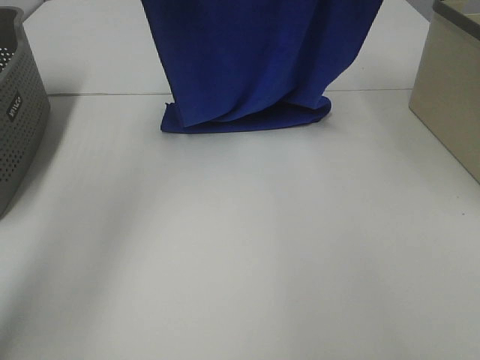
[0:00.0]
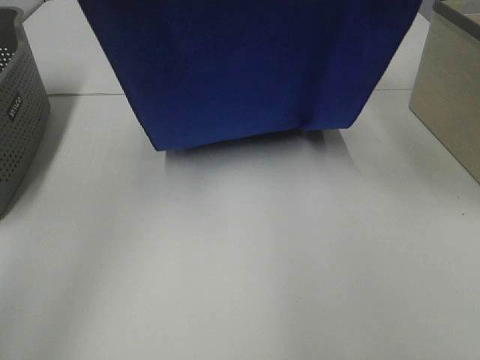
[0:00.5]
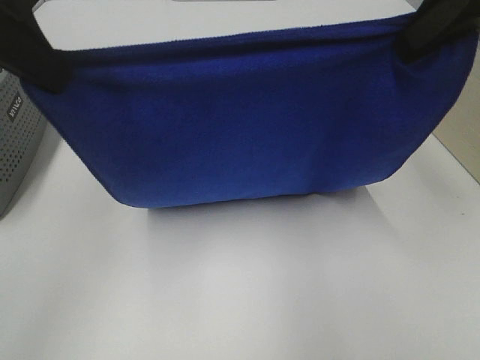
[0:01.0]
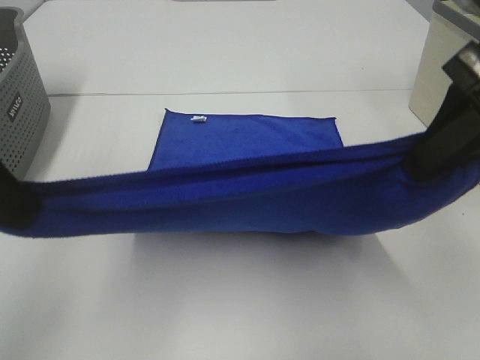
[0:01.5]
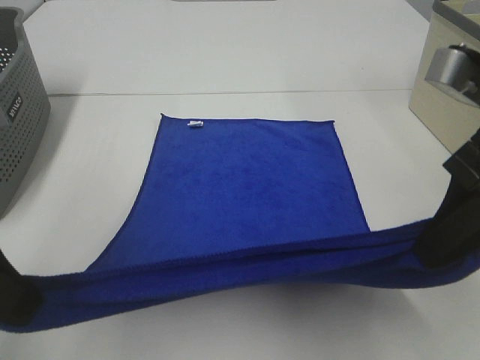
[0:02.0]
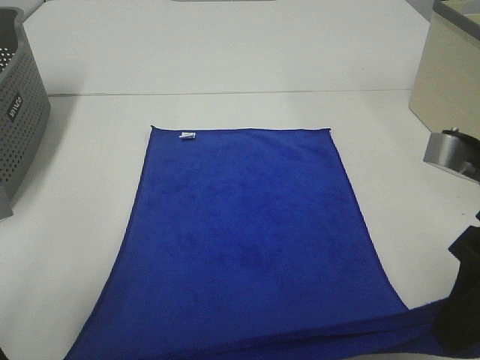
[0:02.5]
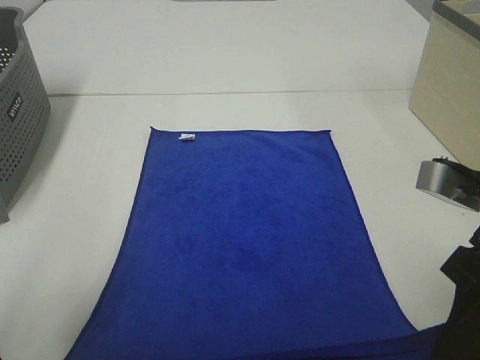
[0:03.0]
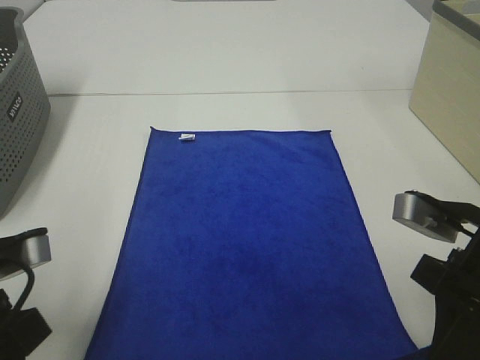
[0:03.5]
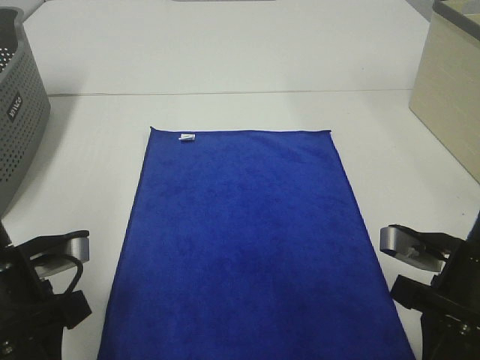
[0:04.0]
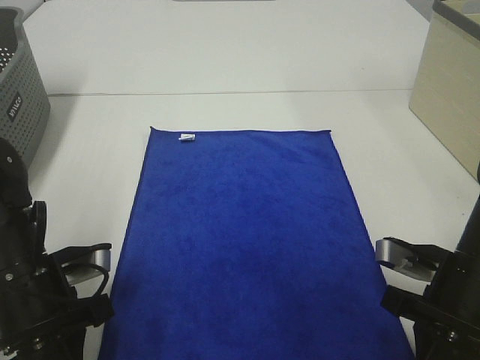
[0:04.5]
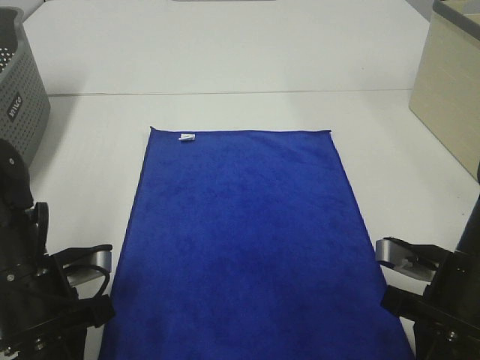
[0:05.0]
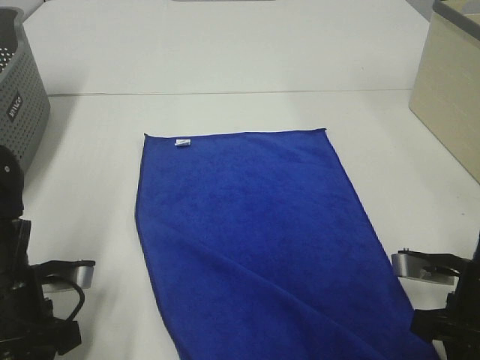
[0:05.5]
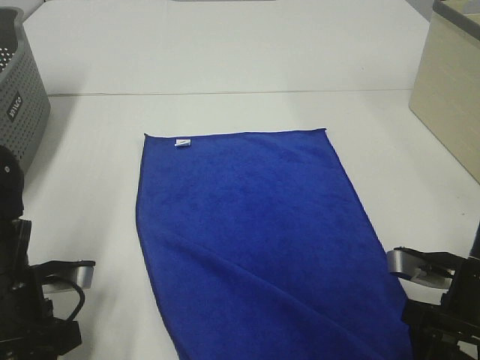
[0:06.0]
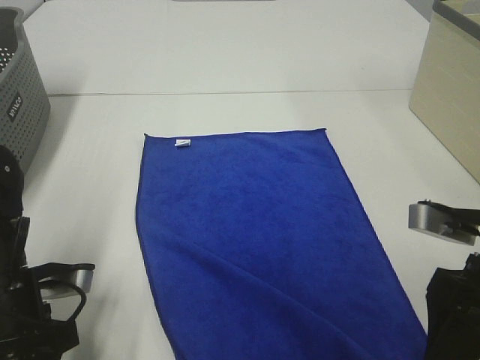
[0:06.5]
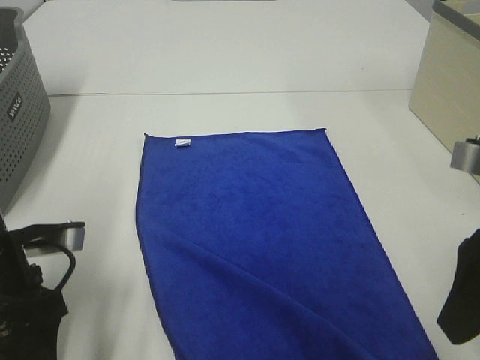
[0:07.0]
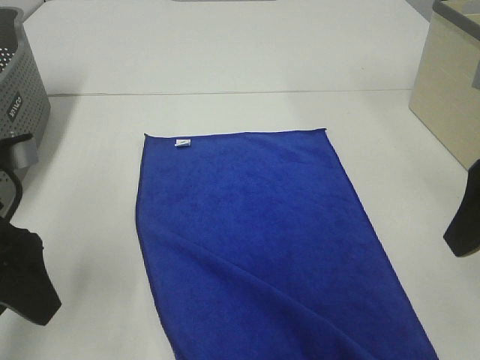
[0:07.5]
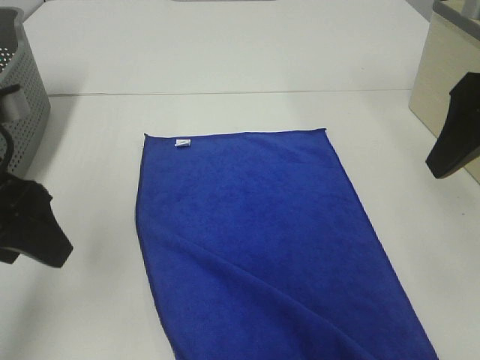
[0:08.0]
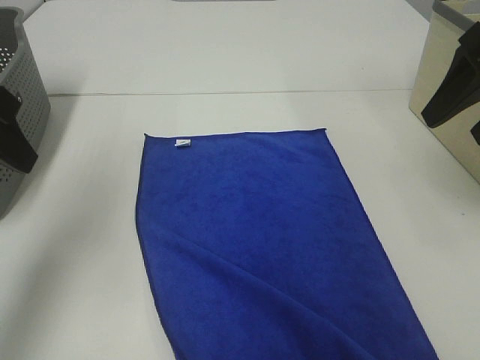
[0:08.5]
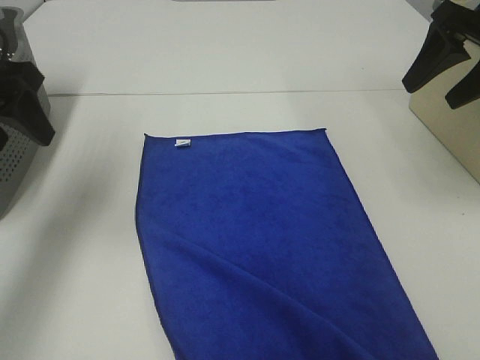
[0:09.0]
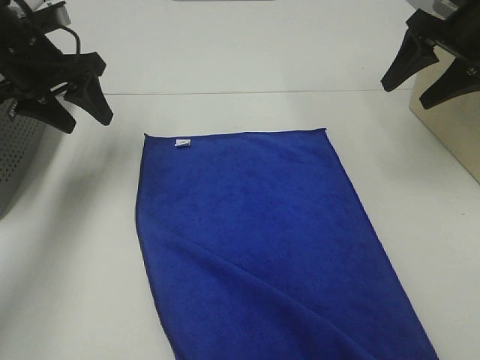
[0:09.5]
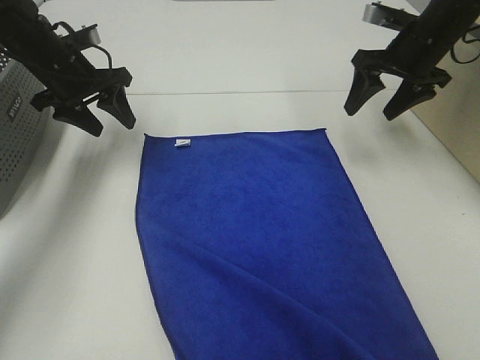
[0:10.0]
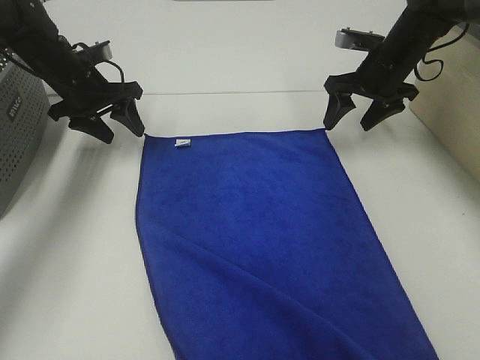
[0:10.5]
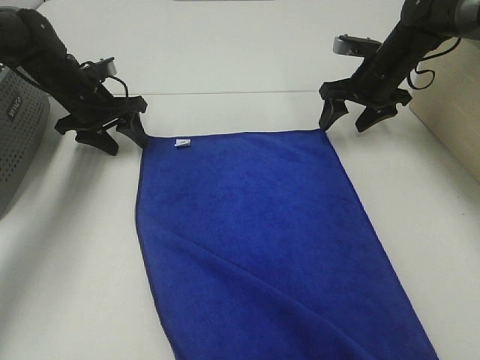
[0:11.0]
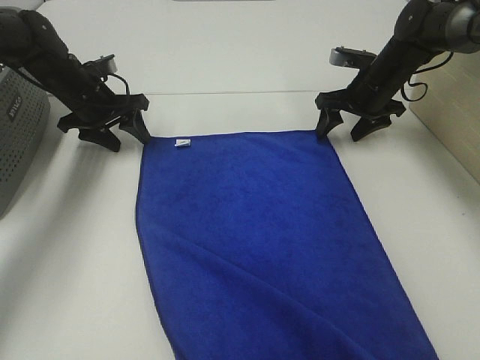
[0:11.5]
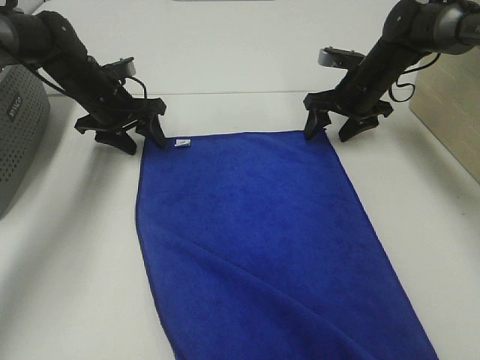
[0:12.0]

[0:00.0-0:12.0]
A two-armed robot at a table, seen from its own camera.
Task of the whole recording: Remove the towel and place it.
Step, 0:02.0 to 0:10.5: Left hand:adjust the blue towel.
Step, 0:02.0 to 0:10.5: Right hand:adjust the blue towel.
0:00.0 to 0:02.0: Both grippers travel together backward and downward, approximately 30 cm.
0:02.0 to 0:04.0: The two grippers go roughly 15 cm downward.
0:04.0 to 0:06.0: The right gripper opens up.
0:06.0 to 0:08.0: The grippers both shift upward by roughly 20 cm. The left gripper opens.
0:08.0 to 0:10.0: The right gripper heads forward and downward, covering roughly 25 cm. Meanwhile the left gripper is displaced forward by about 25 cm.
0:10.0 to 0:12.0: Both grippers move downward, about 10 cm.

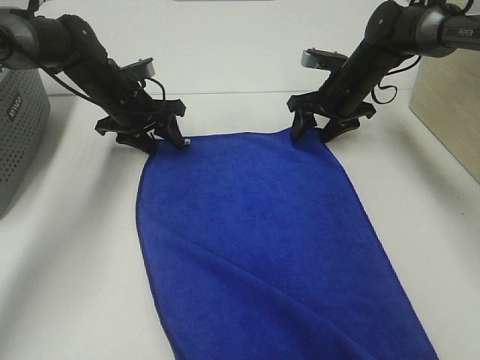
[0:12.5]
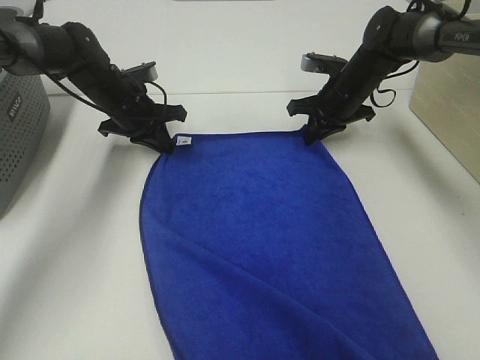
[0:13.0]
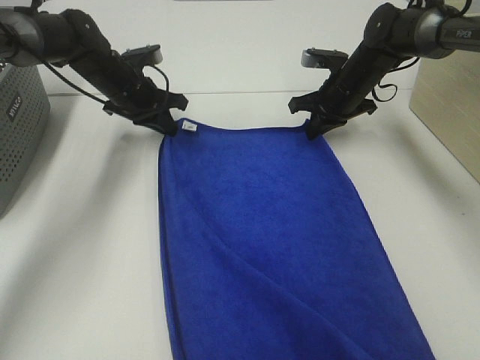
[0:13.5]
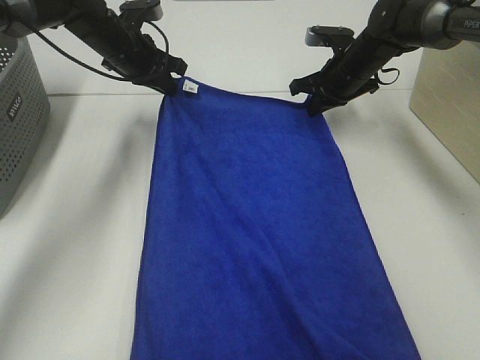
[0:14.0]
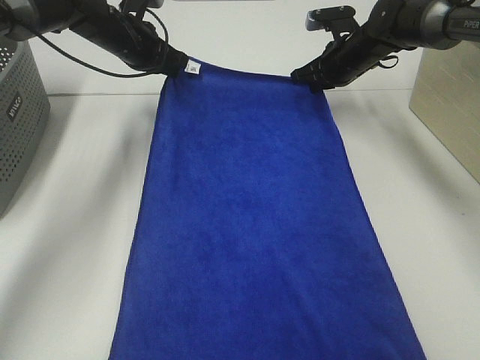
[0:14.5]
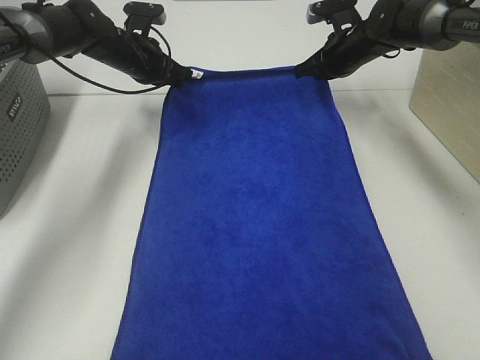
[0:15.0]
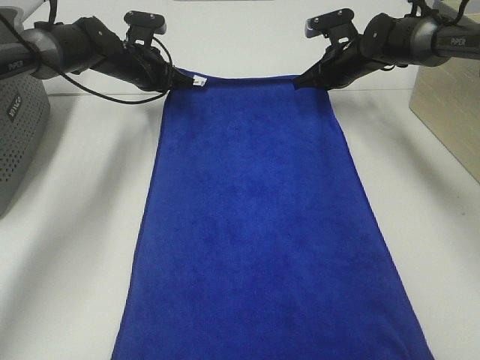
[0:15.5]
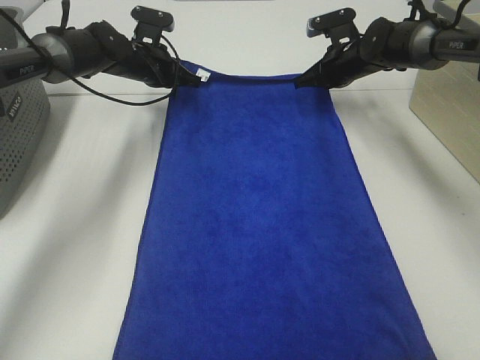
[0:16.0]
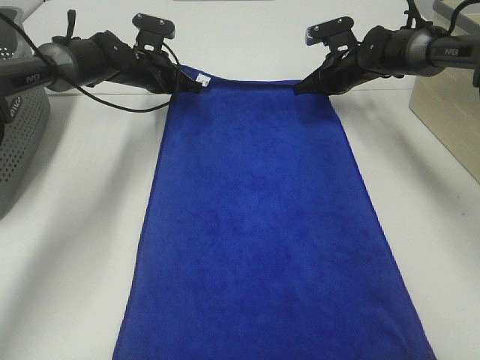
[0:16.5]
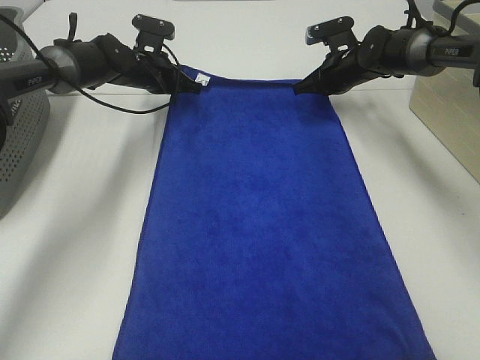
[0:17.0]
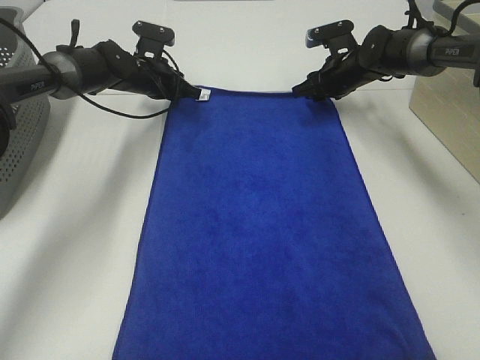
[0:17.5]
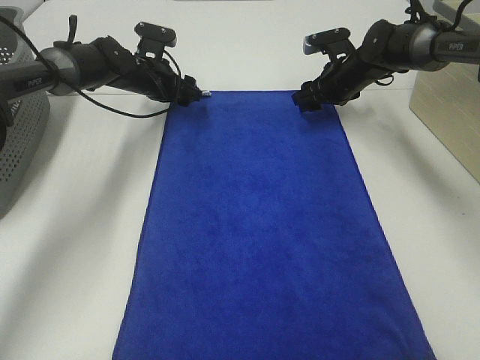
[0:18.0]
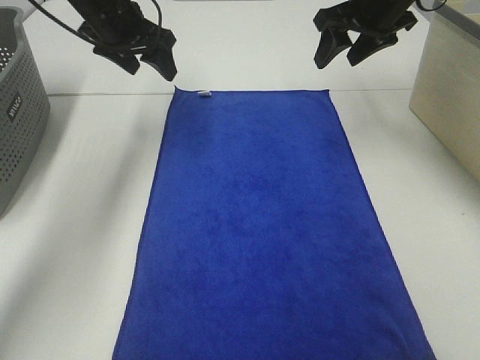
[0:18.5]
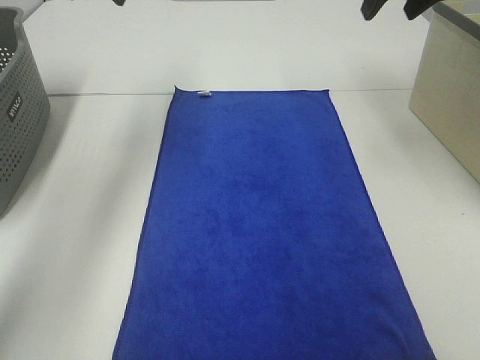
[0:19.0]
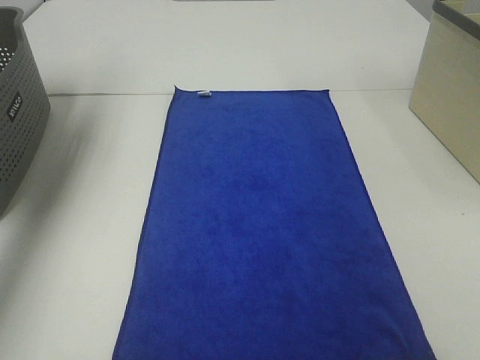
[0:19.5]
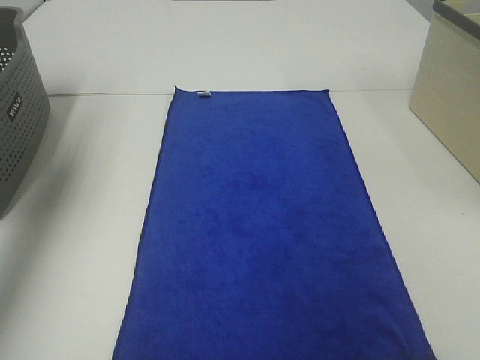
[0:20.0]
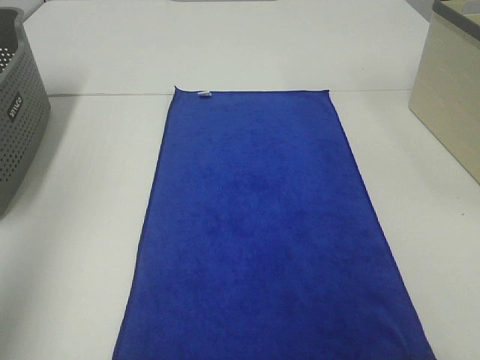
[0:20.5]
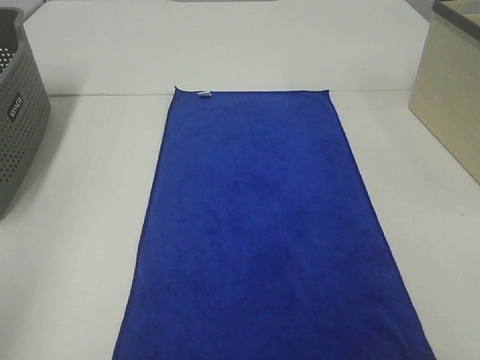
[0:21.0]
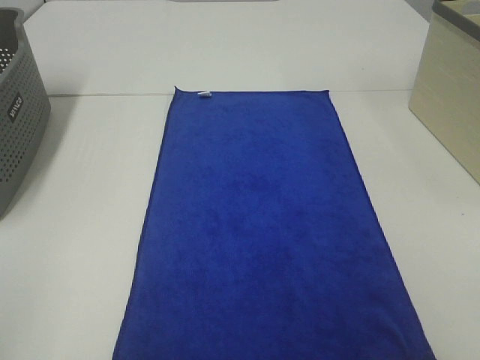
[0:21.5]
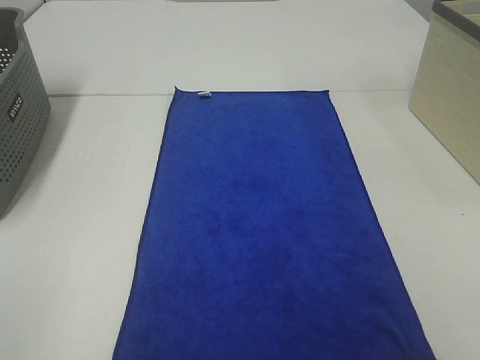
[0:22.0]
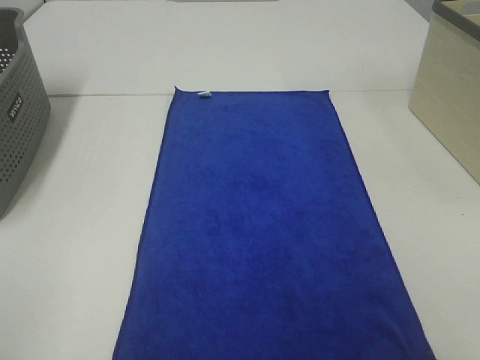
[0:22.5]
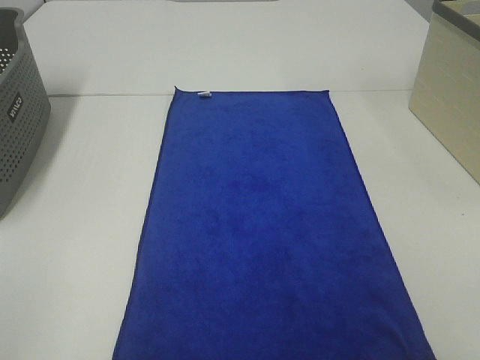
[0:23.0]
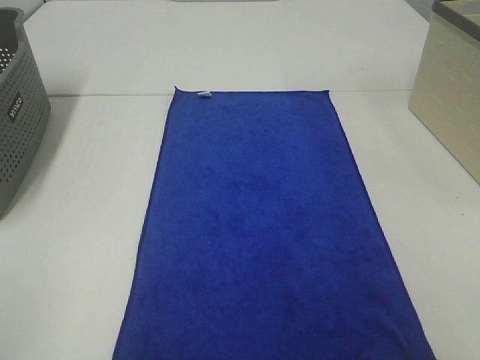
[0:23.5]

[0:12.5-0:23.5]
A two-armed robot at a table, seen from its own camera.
Task of the whole recording: Remove the towel and place it.
0:12.5 to 0:14.5: The left gripper is displaced upward and forward by approximately 10 cm, and closes its fingers; the right gripper changes place by roughly 5 cm, and closes up.
0:14.5 to 0:16.0: The left gripper shifts about 5 cm downward.
0:16.0 to 0:18.0: The right gripper opens up; the left gripper opens up.
0:18.0 to 0:20.0: The left gripper heads upward, backward and to the left, covering about 40 cm; the right gripper shifts approximately 40 cm backward and upward.
0:20.0 to 0:21.5: The left gripper shifts some 35 cm backward.

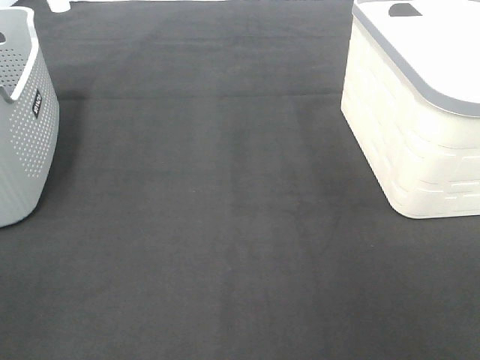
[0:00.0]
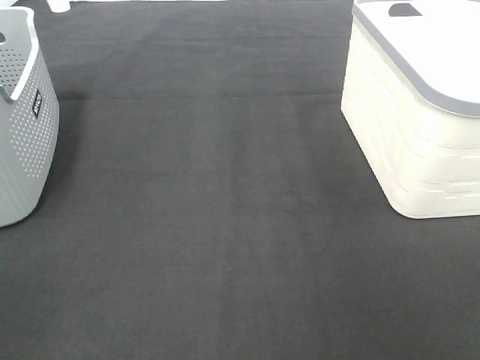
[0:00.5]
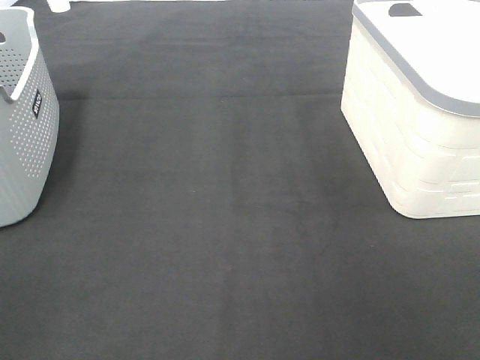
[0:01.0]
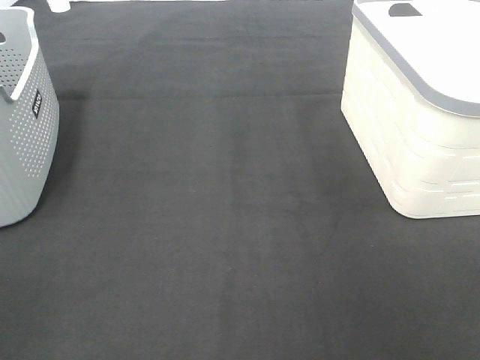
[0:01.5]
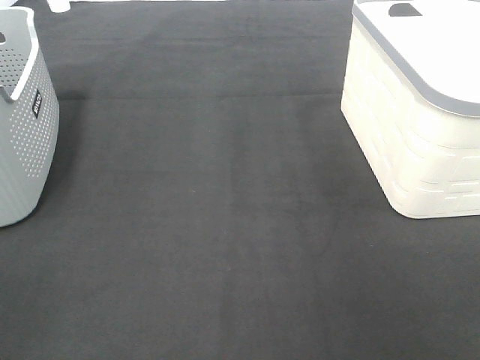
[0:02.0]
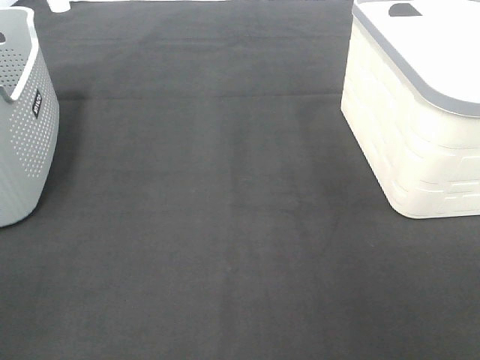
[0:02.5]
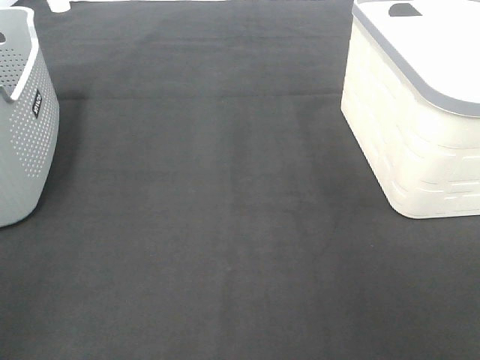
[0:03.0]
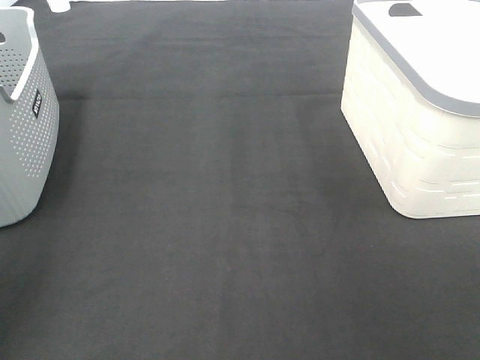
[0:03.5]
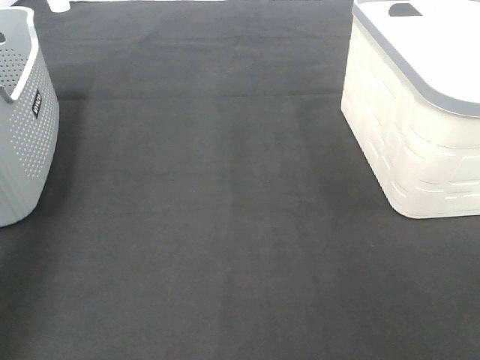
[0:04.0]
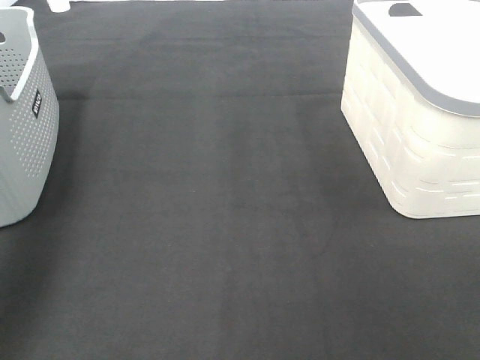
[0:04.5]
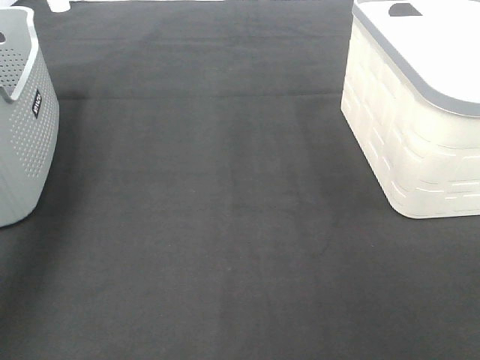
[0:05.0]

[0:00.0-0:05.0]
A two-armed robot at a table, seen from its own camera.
Task of the whole recording: Remove the towel and place it.
0:02.5 to 0:05.0: The left gripper moves forward, about 40 cm.
